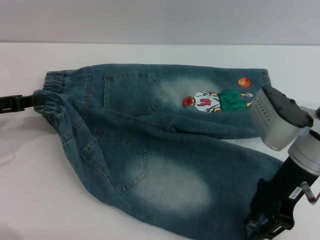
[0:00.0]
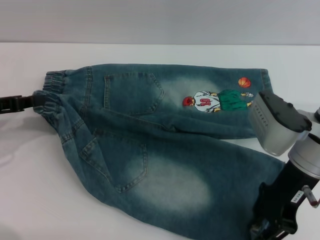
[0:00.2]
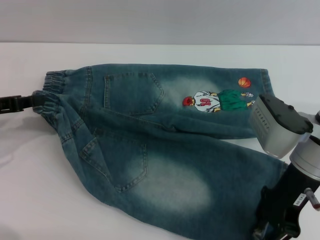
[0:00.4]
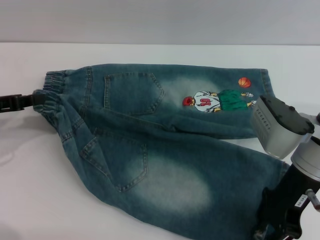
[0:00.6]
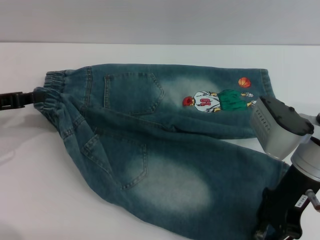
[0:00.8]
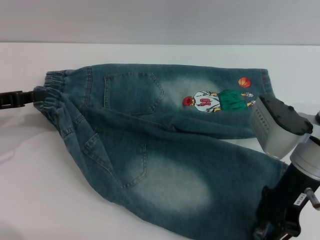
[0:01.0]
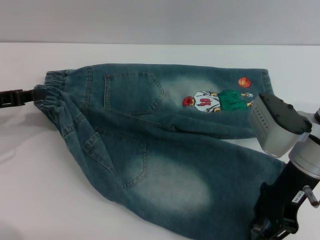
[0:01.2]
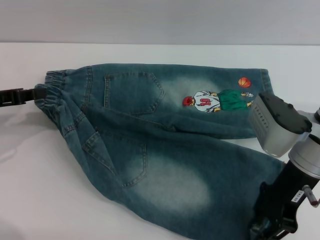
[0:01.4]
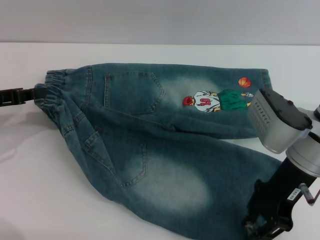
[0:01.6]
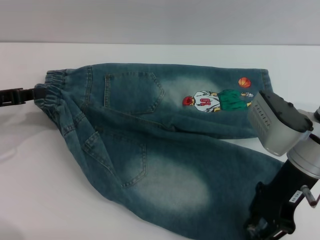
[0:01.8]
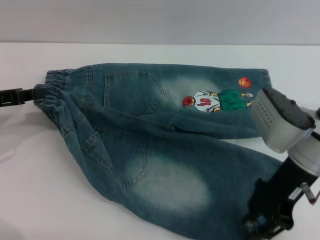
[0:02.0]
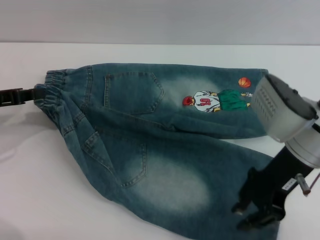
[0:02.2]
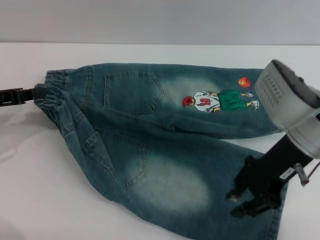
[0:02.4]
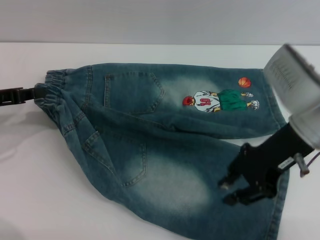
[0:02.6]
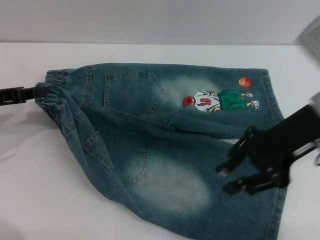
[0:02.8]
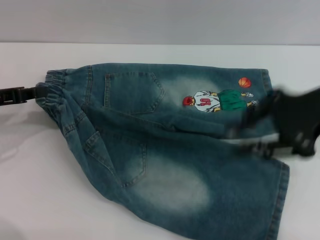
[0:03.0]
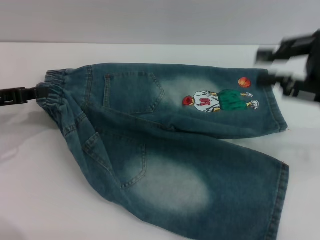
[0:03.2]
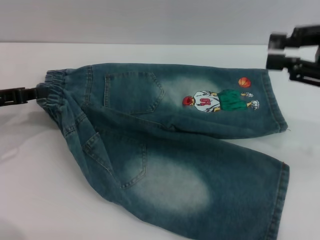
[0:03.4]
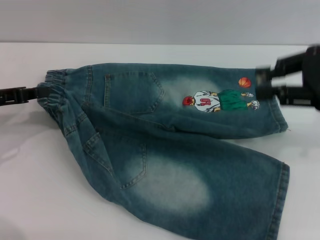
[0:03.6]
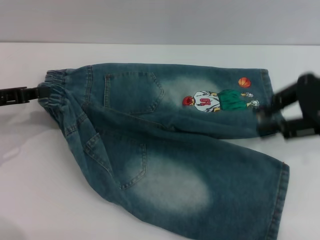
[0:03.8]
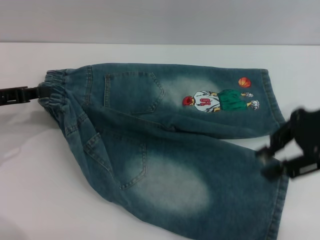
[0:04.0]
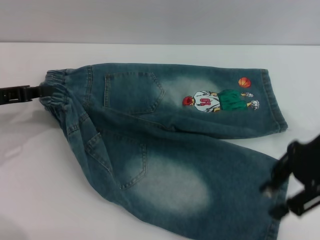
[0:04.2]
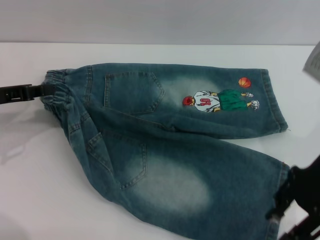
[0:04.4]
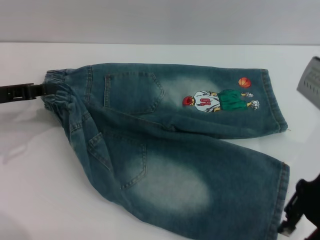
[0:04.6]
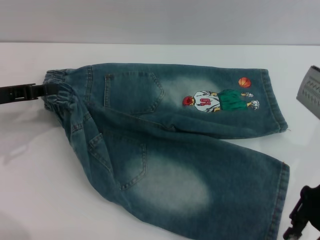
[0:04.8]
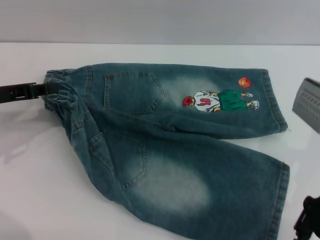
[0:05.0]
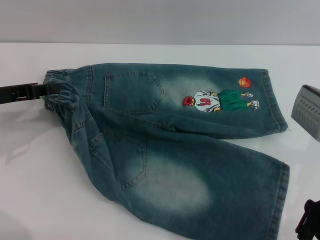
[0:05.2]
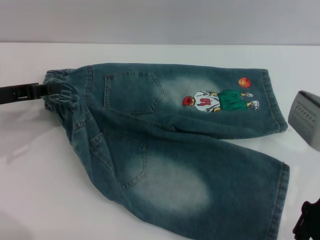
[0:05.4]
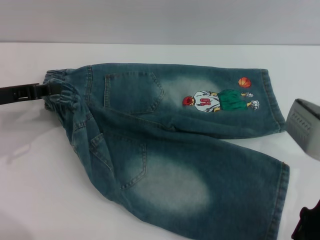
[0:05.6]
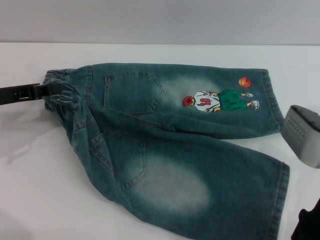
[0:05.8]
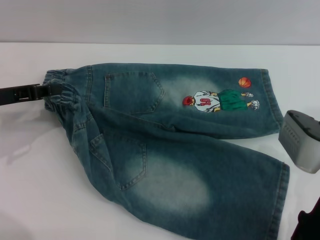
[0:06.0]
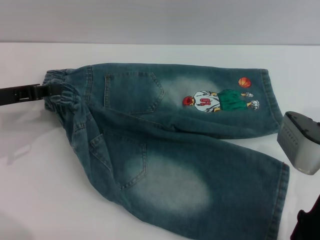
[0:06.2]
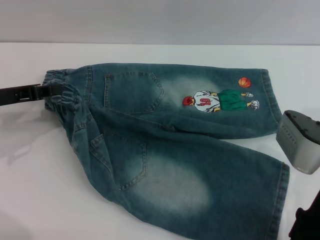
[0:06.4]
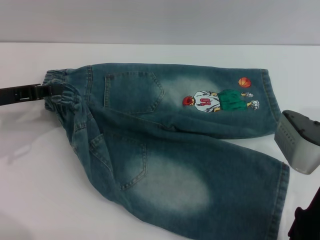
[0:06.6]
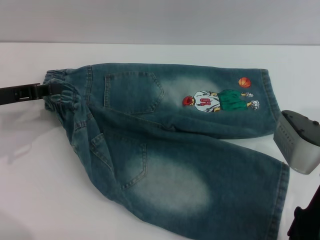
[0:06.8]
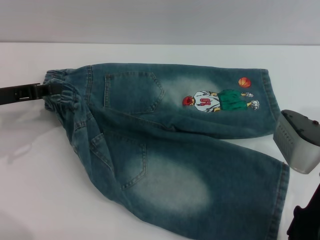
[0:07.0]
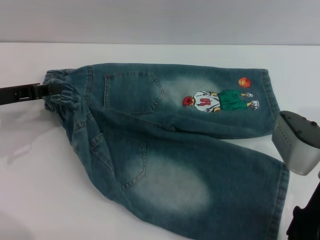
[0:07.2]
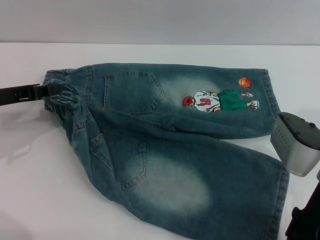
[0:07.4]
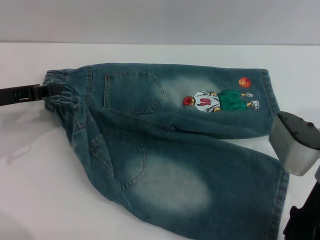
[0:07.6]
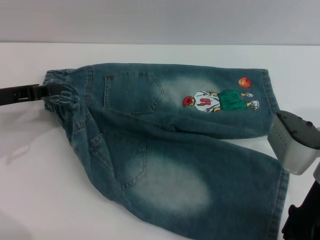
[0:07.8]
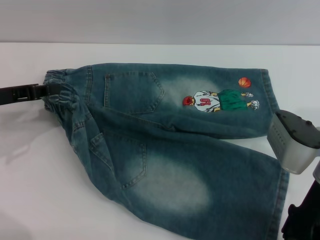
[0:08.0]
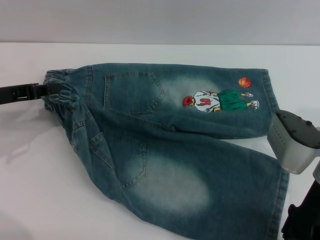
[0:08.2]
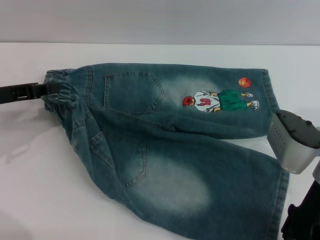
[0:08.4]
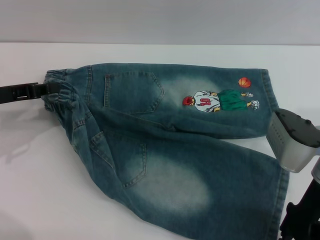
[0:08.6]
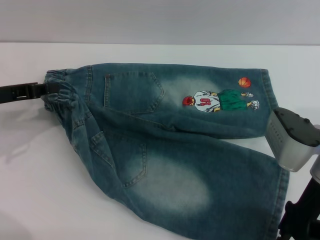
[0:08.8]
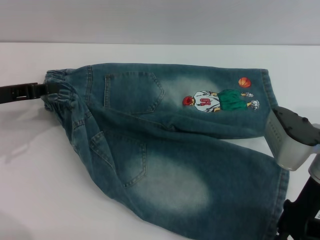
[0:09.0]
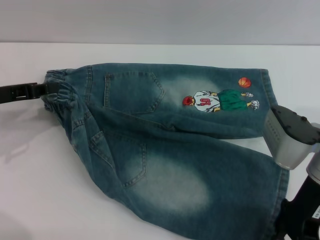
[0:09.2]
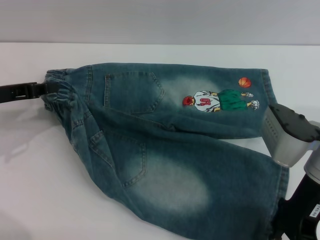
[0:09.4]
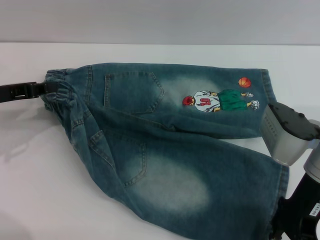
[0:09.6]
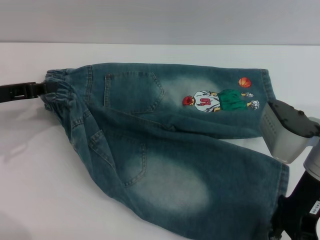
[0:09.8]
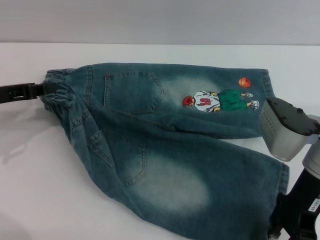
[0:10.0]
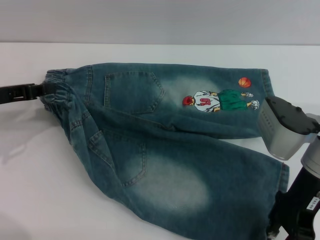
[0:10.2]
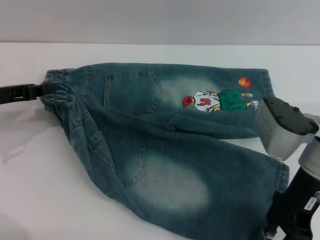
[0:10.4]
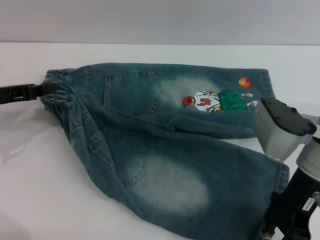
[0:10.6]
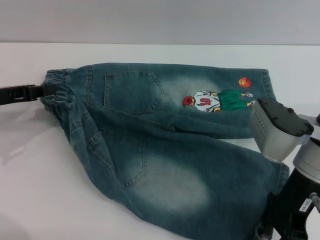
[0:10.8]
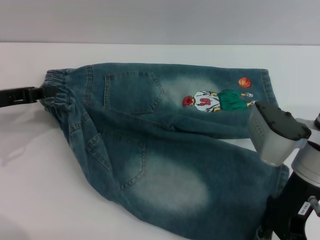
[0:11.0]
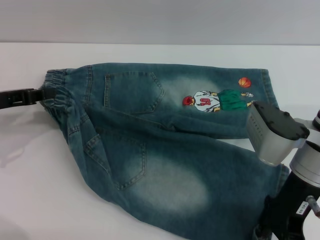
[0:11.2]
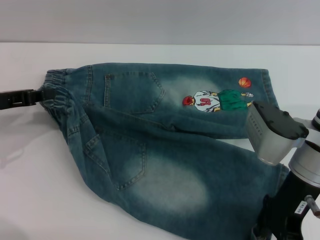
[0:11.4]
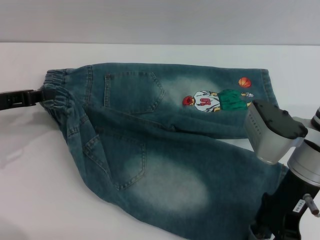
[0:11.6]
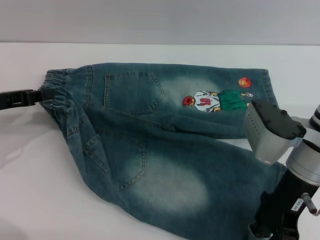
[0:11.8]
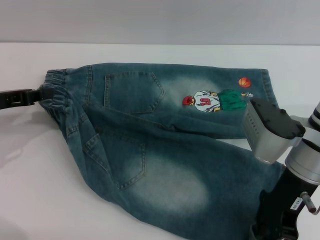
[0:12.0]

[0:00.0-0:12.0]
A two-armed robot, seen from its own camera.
0:00.0 to 0:01.6: Both grippers stay about where they are.
0:01.6 to 0:03.0: The right gripper moves upward and to the right, approximately 10 cm.
0:04.4 to 0:06.0: The right gripper moves downward, approximately 5 cm.
0:06.0 to 0:07.6: Both grippers stay put.
0:07.6 to 0:09.0: The two grippers keep their place.
0:09.0 to 0:12.0: The grippers move only a little.

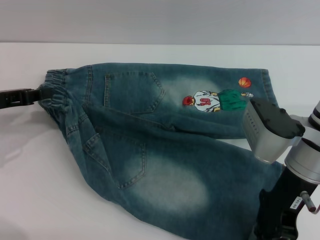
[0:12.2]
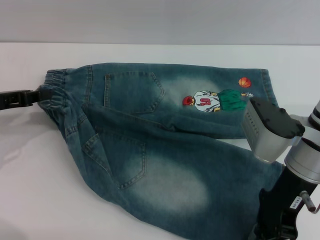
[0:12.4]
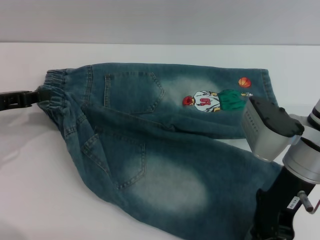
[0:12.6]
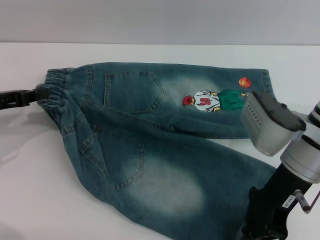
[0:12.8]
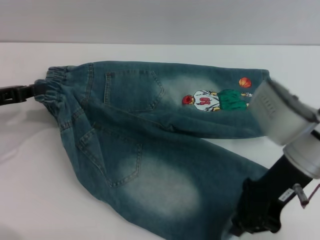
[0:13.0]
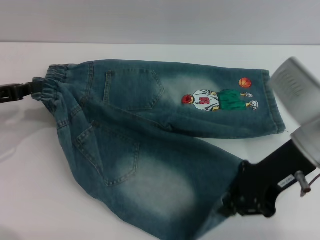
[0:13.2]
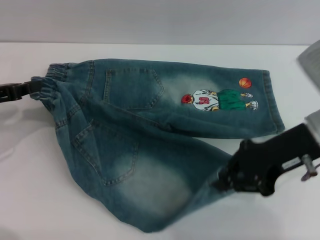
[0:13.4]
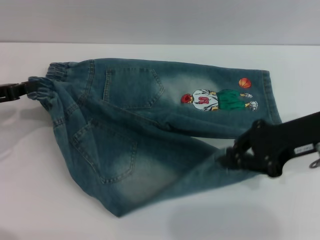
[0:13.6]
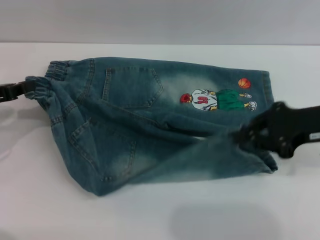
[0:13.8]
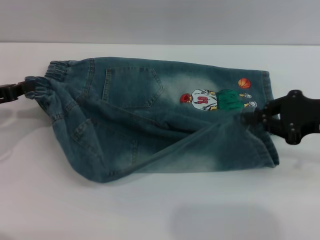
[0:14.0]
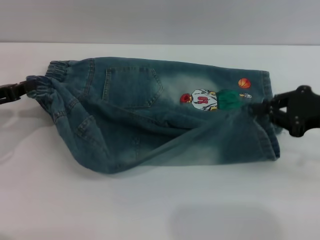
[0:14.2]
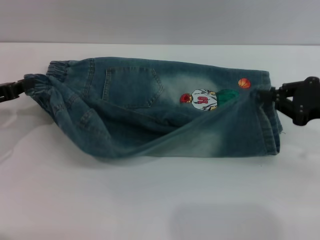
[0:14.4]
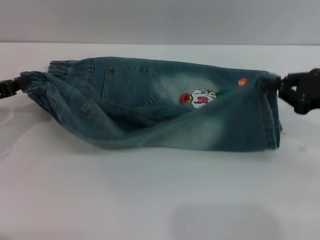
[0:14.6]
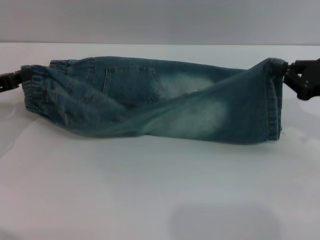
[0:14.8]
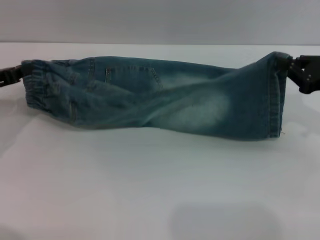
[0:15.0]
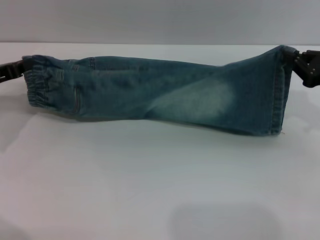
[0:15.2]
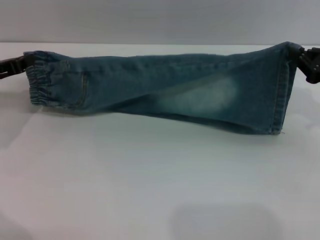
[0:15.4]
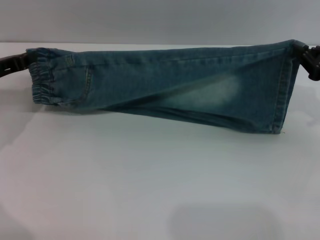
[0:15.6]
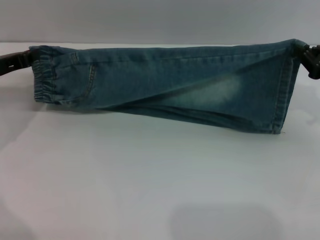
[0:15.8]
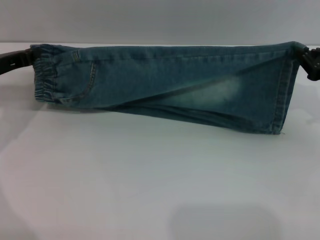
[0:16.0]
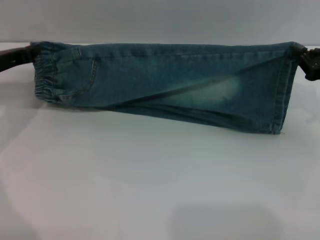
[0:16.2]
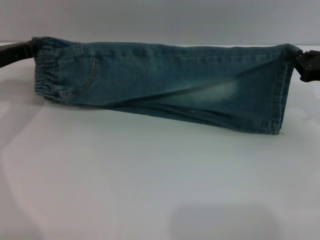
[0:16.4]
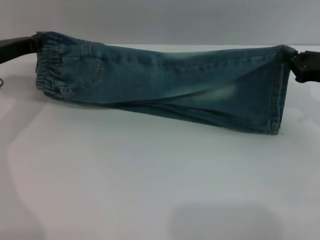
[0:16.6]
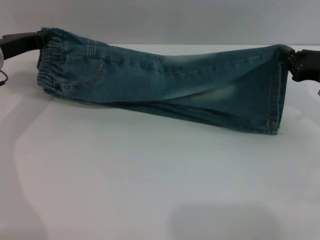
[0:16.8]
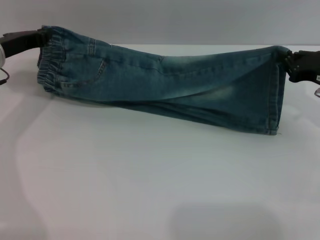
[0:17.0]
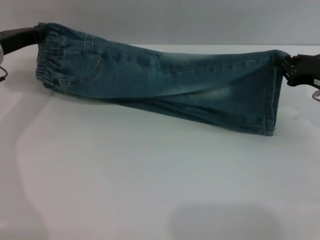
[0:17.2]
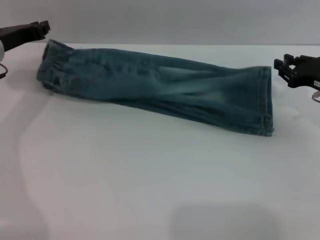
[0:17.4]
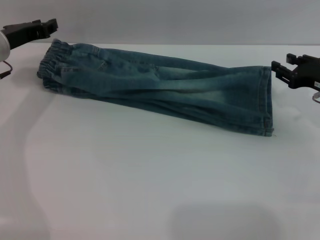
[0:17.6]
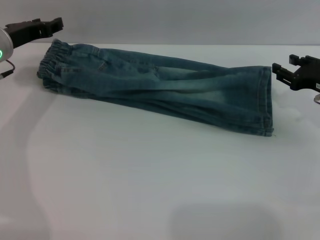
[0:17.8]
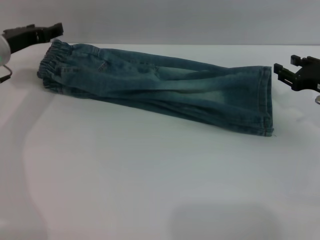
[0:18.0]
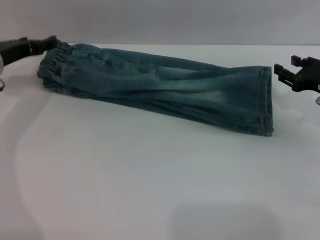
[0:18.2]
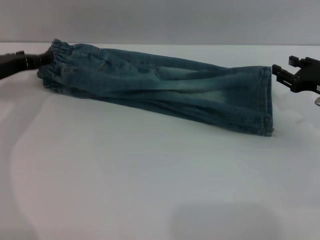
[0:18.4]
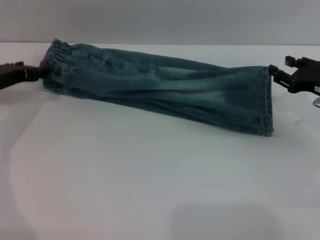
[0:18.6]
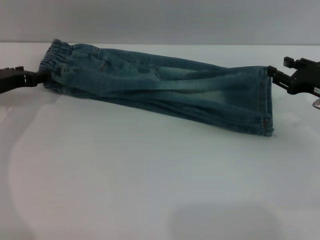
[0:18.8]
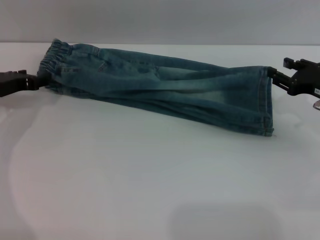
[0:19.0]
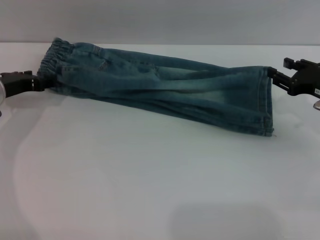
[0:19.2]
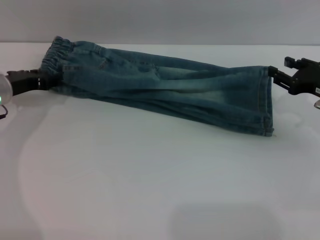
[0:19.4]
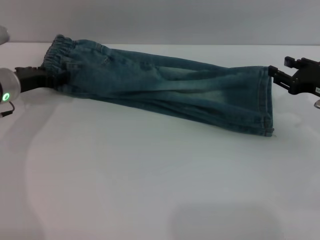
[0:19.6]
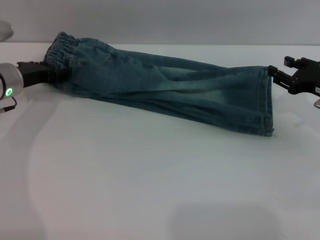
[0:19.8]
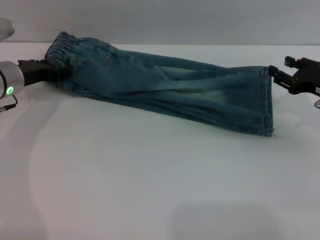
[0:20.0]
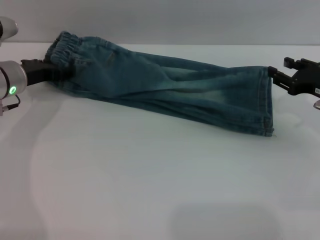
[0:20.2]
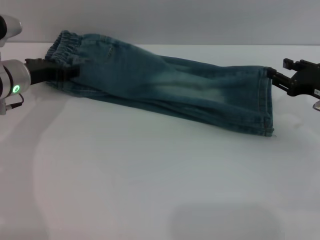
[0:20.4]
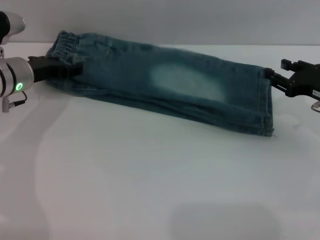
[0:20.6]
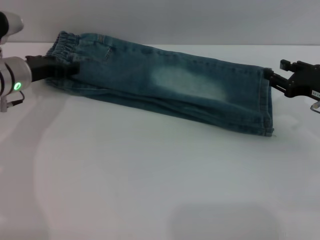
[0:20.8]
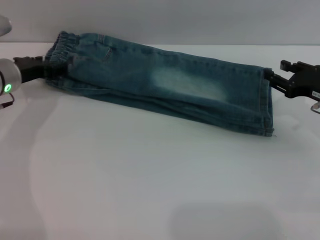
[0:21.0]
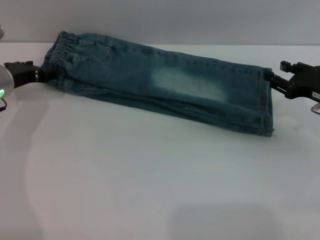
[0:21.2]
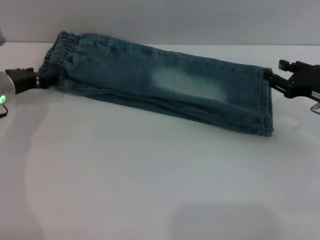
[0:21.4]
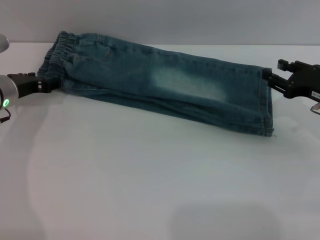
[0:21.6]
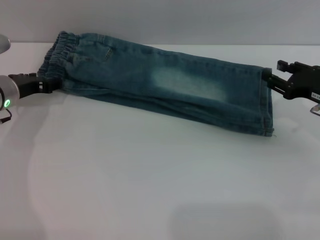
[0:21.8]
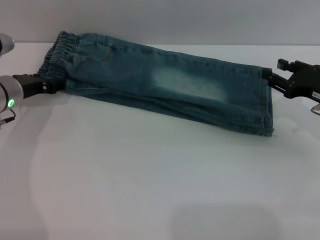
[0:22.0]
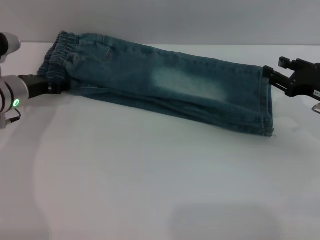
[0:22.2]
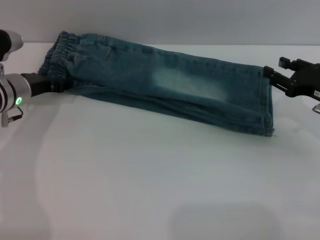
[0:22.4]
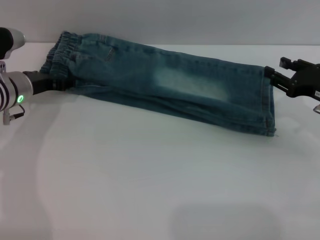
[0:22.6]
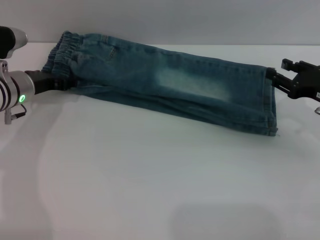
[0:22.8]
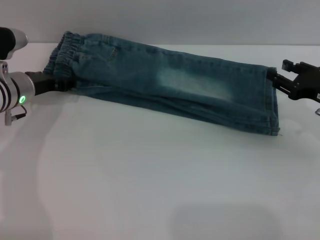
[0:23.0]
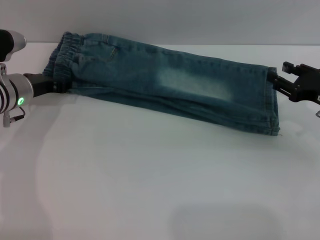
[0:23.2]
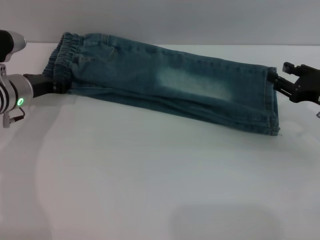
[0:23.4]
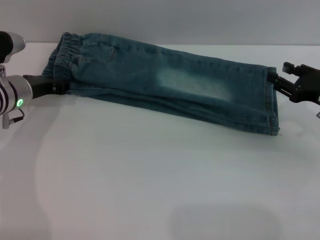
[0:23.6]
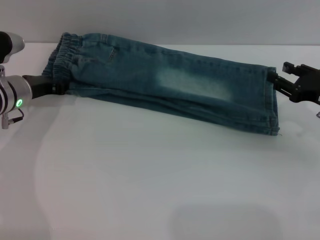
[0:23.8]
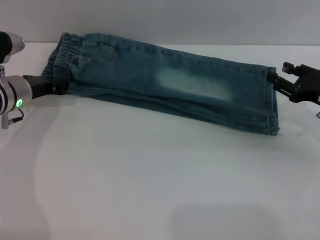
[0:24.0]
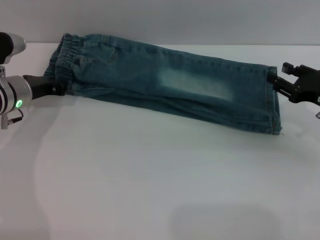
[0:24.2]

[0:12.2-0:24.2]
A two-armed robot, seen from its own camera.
Step, 0:12.2 to 0:18.2: Fold the bottom of the pants upward with both grippers.
0:12.2 to 0:13.8: The right gripper shifts roughly 10 cm to the right.
0:13.8 to 0:15.2: The right gripper travels to the right by roughly 5 cm.
0:15.2 to 0:16.6: The left gripper moves forward, approximately 5 cm.
0:16.6 to 0:18.2: The right gripper opens up, while the left gripper opens its fingers.
0:18.2 to 0:22.6: The grippers stay close to where they were, moving slightly.
0:22.6 to 0:24.2: The left gripper closes its fingers.
